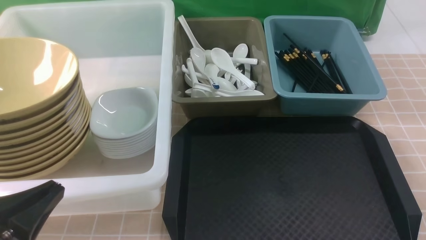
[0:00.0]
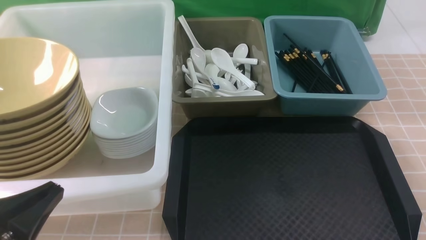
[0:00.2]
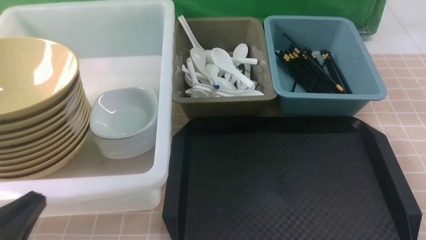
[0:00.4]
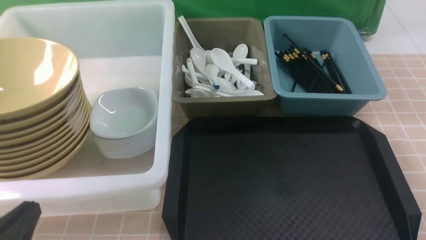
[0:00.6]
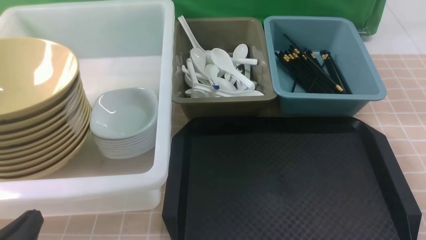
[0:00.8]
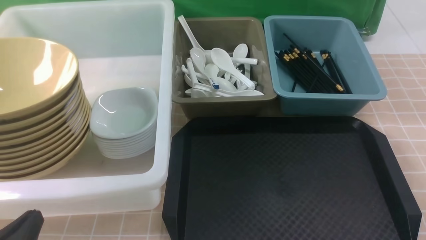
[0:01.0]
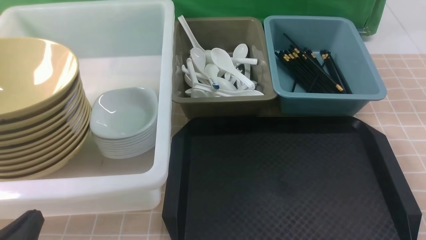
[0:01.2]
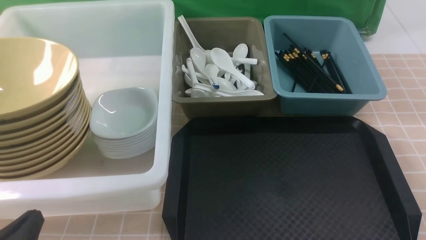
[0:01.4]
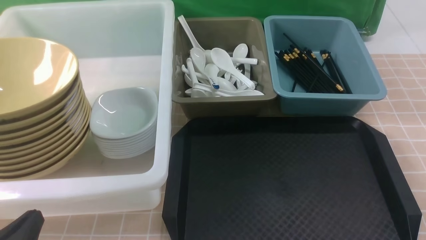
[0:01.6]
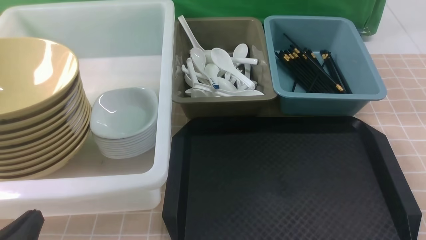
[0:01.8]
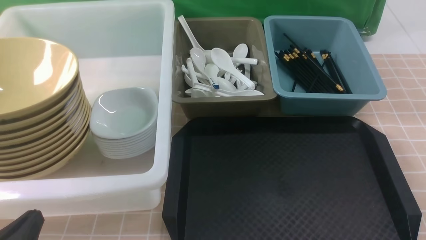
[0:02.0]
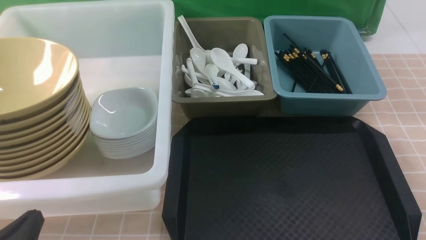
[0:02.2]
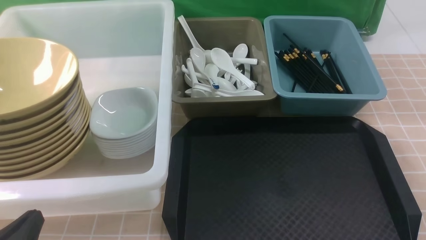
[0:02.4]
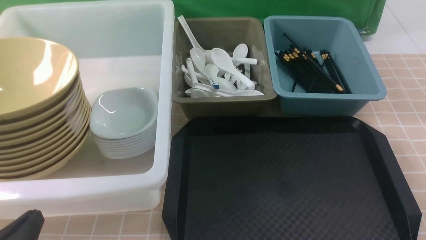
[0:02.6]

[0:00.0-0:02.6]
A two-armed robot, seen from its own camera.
Task of the whole recording: on brown table put chopsticks spoon bowls plates into blue grey white boxes.
0:00.0 to 0:01.2: The left gripper heads downward, covering about 10 cm.
0:01.2 to 0:02.6: Both grippers stay put.
